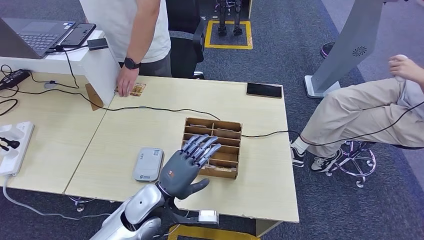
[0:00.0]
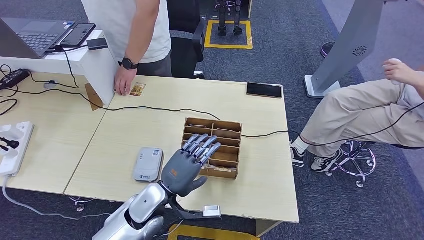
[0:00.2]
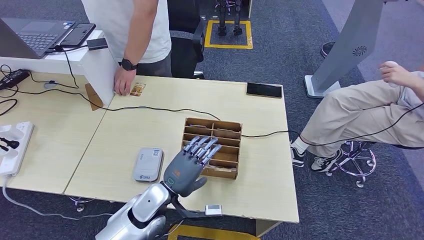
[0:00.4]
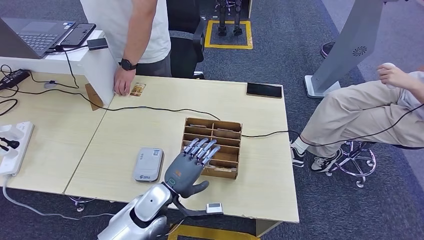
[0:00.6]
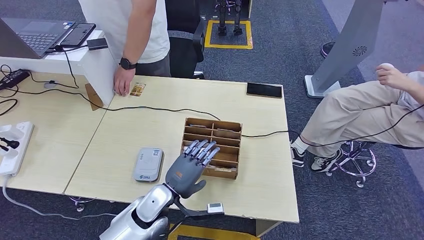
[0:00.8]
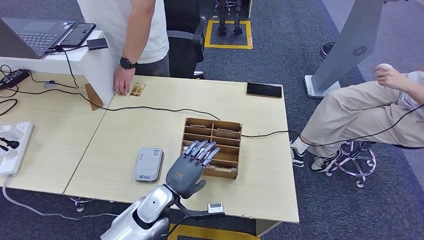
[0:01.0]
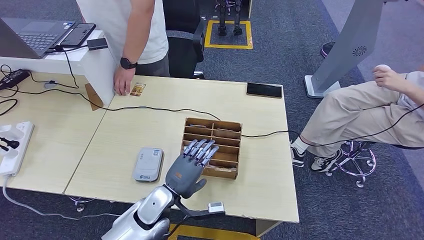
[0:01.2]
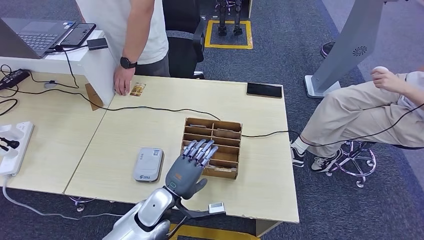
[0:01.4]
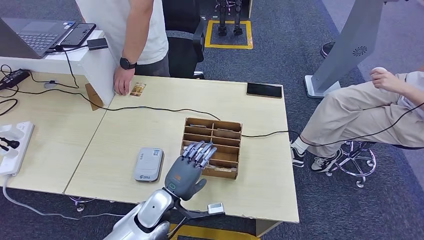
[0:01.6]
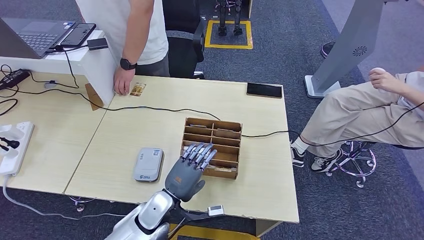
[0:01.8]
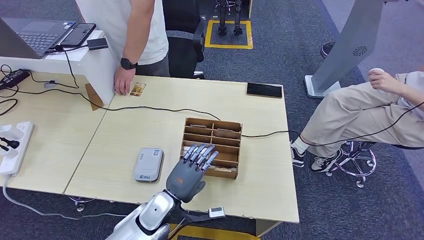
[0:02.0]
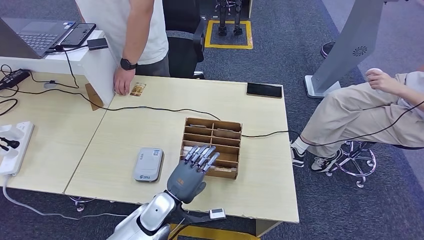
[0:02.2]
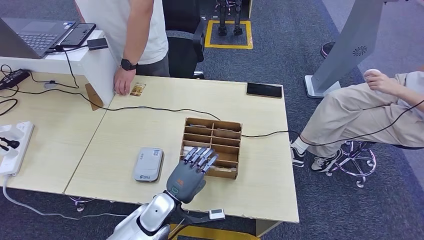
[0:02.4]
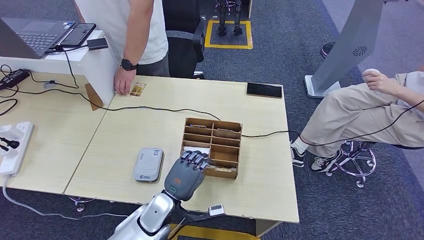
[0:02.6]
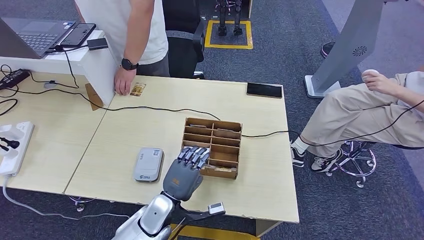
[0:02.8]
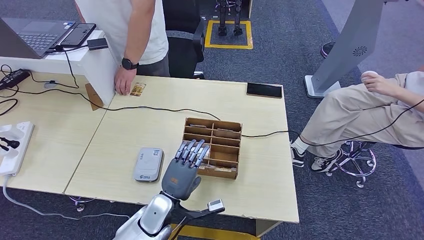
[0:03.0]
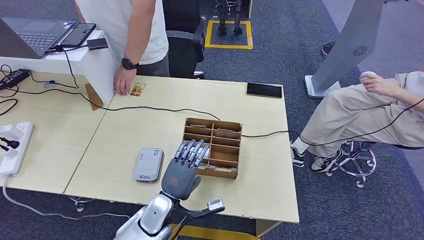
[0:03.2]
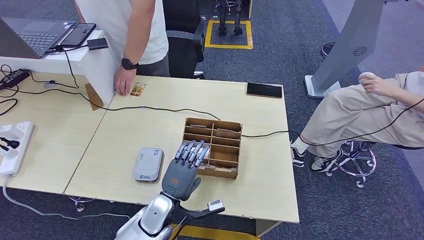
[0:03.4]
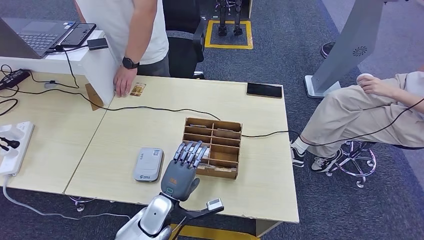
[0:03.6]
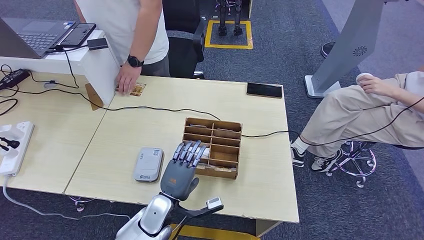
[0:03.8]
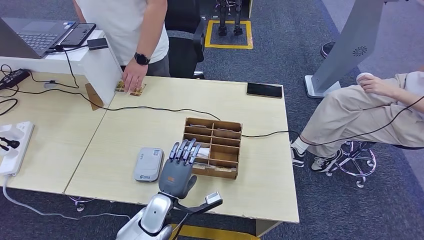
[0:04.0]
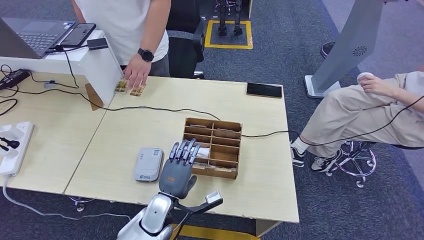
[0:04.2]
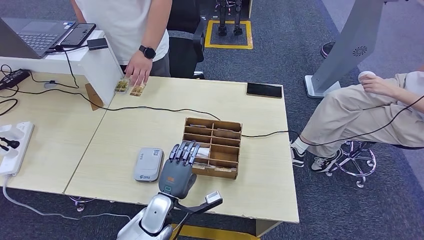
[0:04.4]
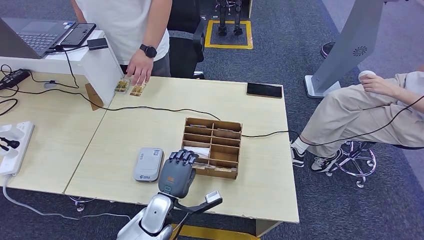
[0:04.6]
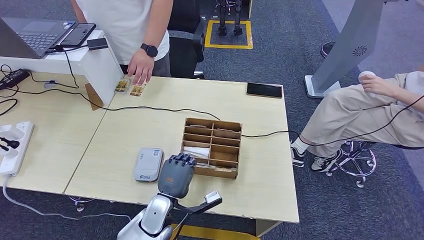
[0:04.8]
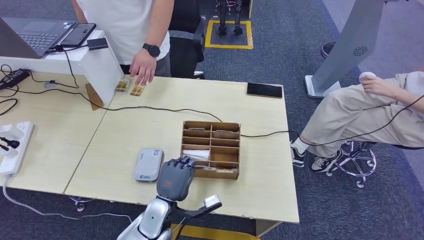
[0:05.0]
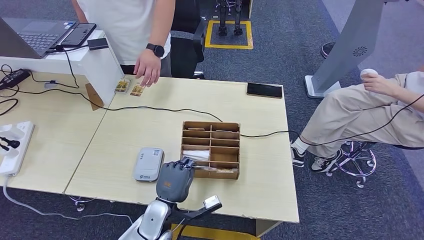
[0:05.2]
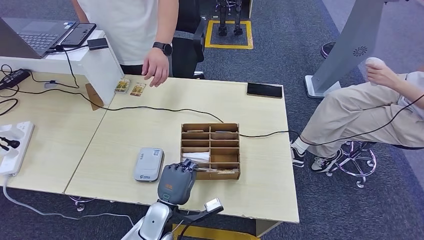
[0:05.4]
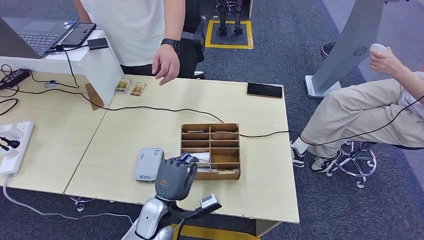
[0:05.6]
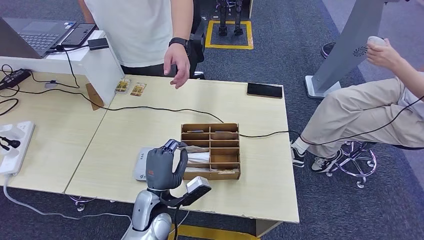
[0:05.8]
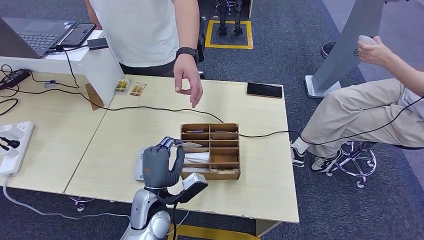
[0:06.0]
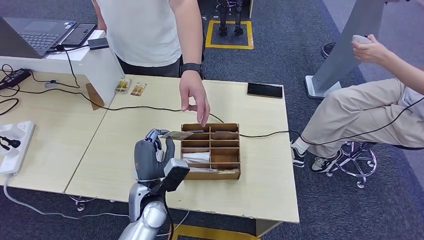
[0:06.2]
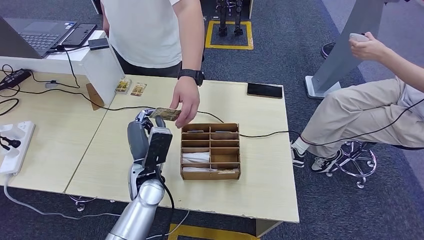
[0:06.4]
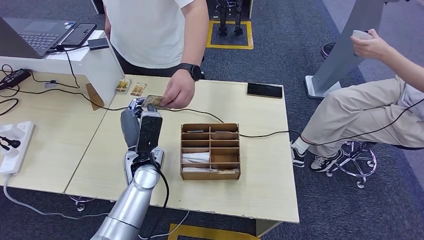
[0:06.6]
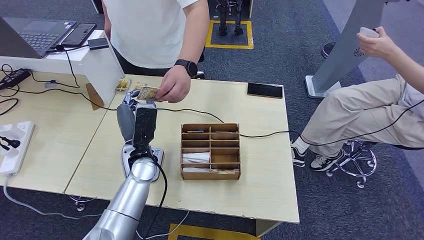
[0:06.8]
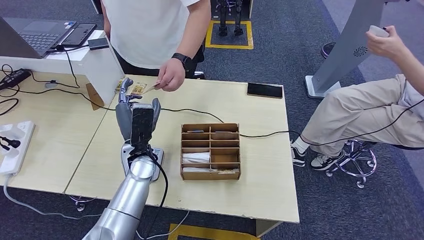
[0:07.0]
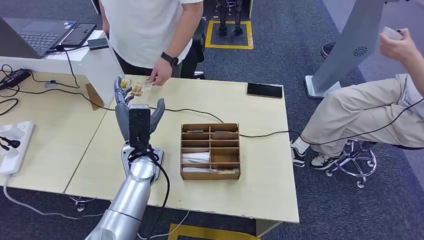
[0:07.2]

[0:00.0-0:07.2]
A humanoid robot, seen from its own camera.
Step, 0:00.0 to 0:04.8: Pick up the room key from the key card box.
Step, 0:05.0 to 0:07.0: Hand the room key to the person.
0:00.0 to 0:01.4: The hands stay close to where they were, moving slightly.
0:01.4 to 0:04.4: There are only small adjustments of the hands.
0:05.8 to 0:07.2: The left hand shifts about 15 cm forward and upward.
